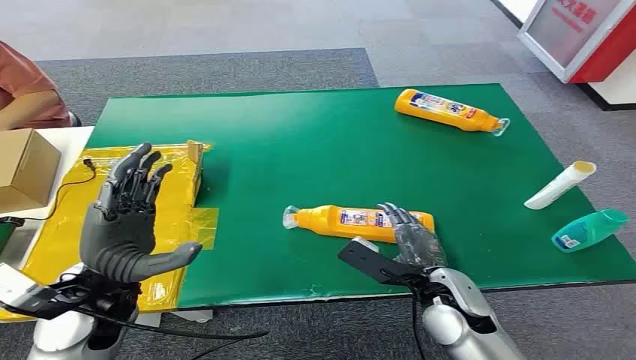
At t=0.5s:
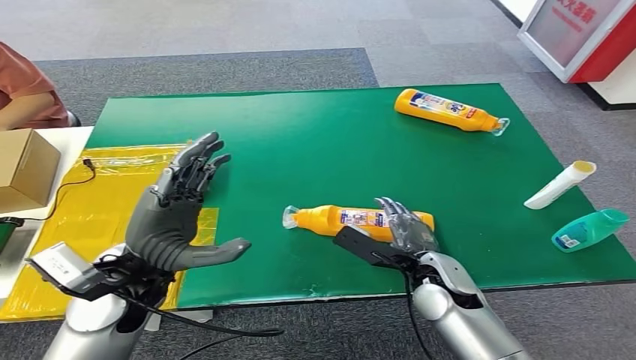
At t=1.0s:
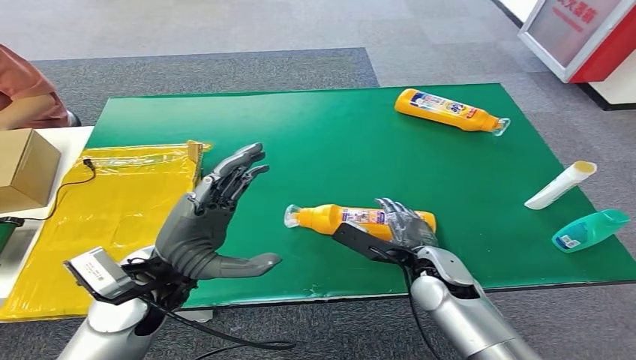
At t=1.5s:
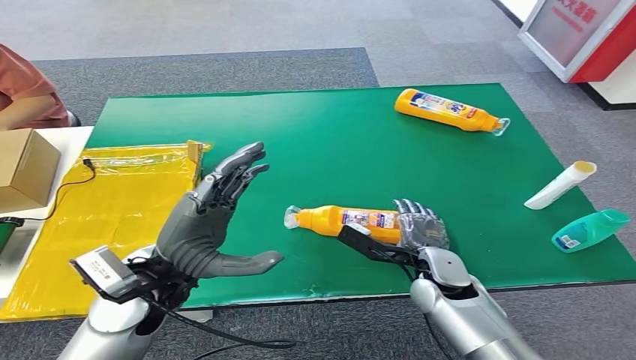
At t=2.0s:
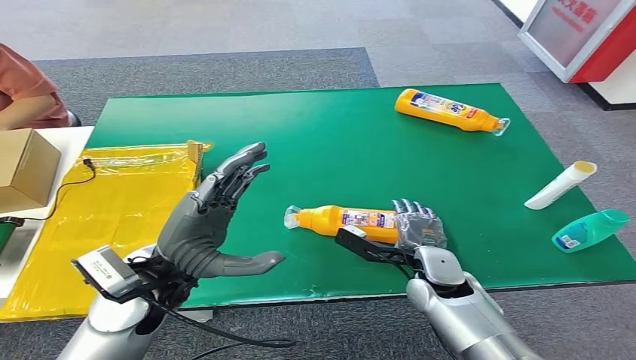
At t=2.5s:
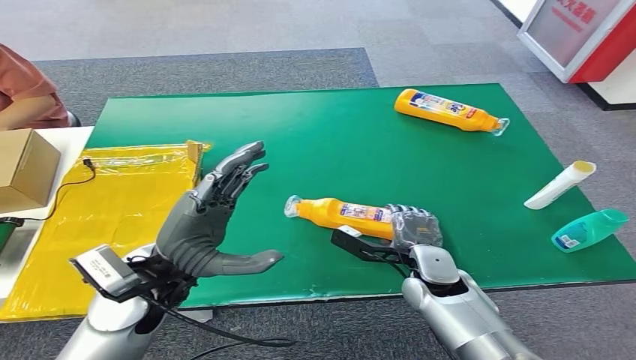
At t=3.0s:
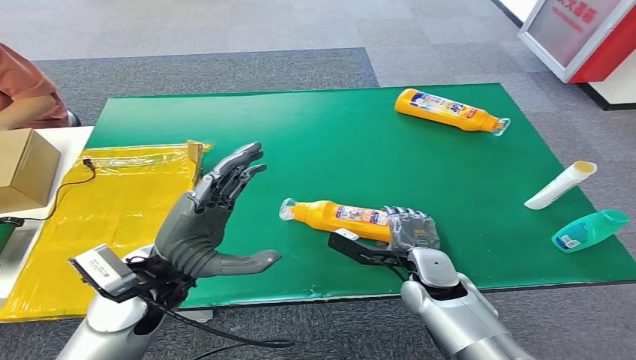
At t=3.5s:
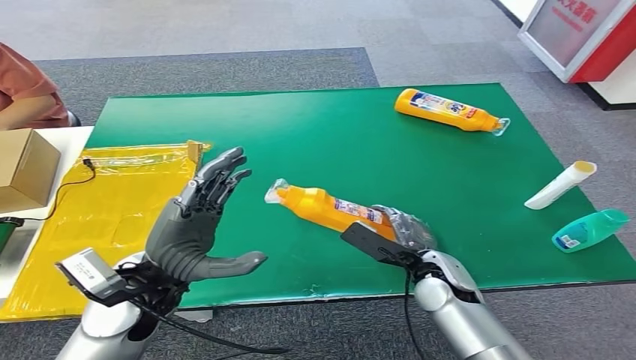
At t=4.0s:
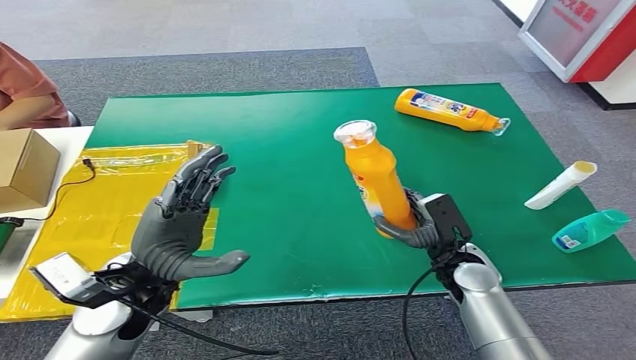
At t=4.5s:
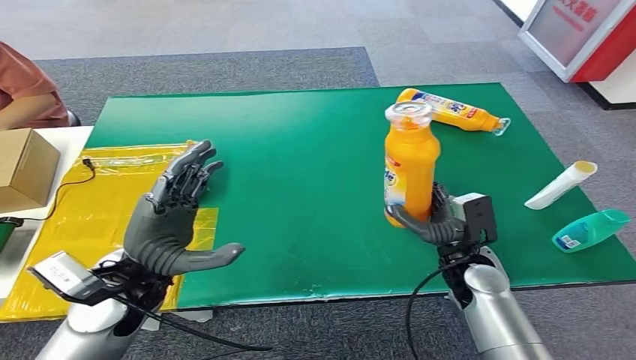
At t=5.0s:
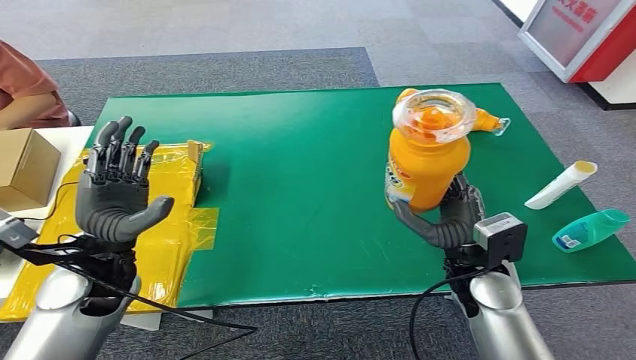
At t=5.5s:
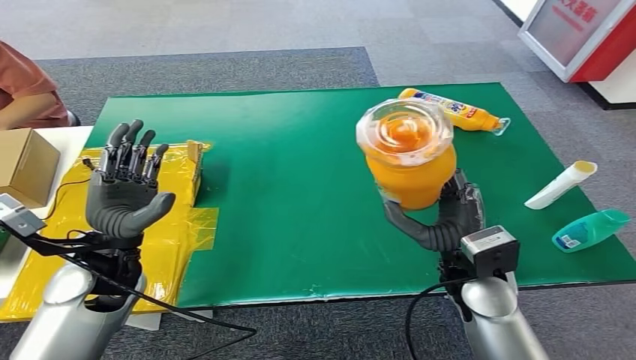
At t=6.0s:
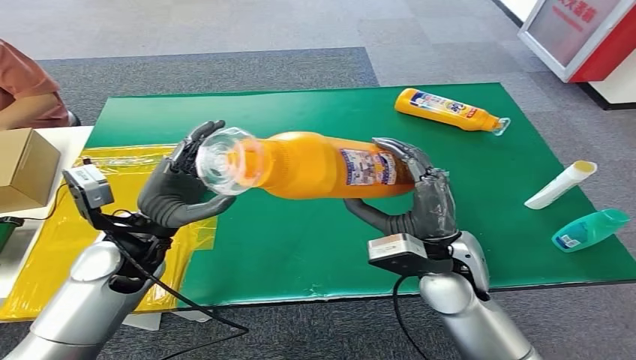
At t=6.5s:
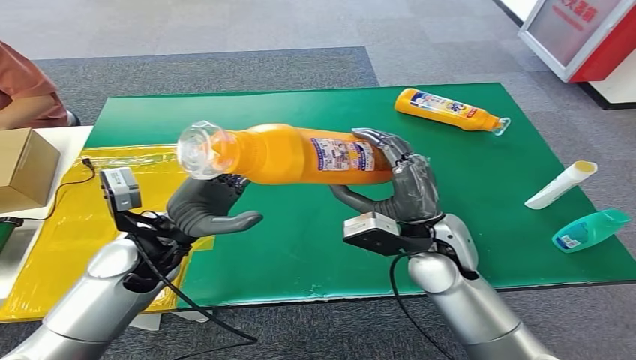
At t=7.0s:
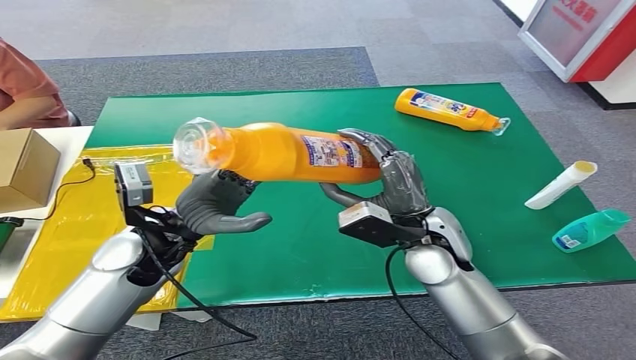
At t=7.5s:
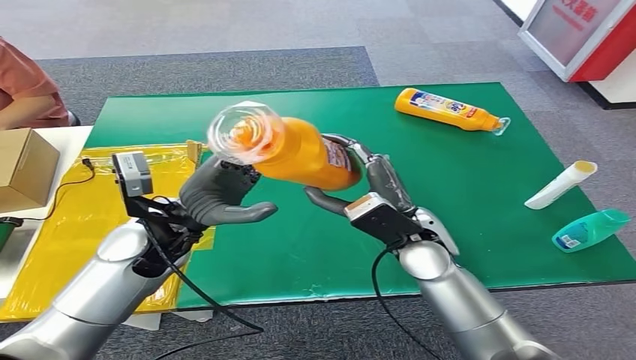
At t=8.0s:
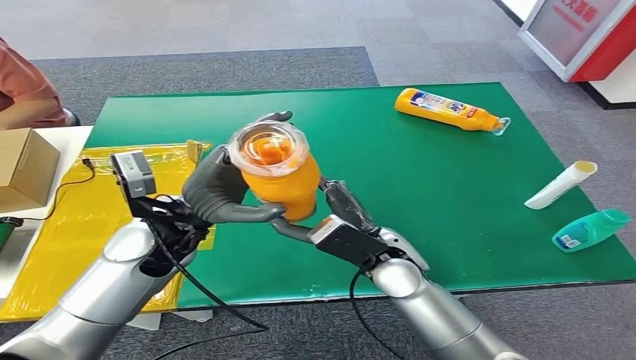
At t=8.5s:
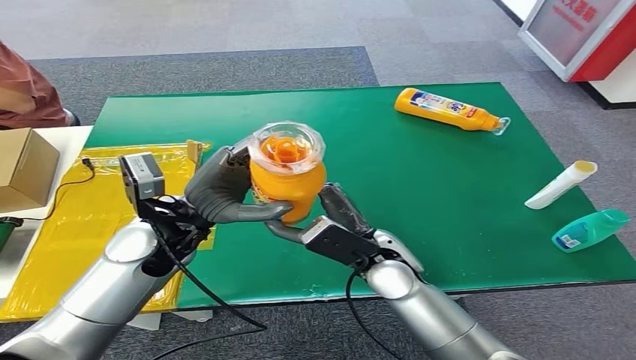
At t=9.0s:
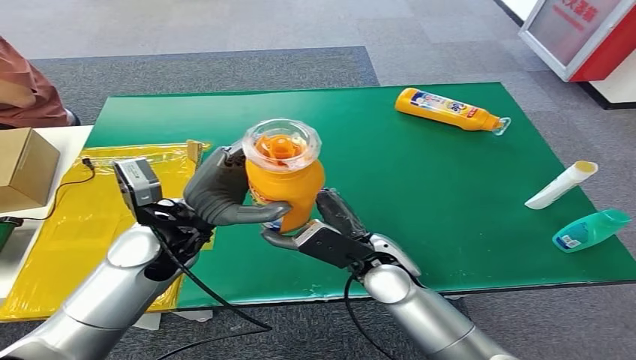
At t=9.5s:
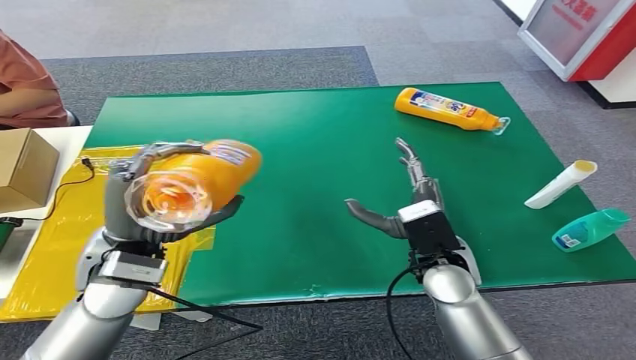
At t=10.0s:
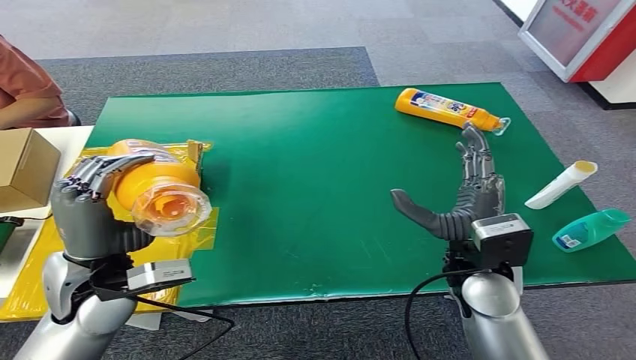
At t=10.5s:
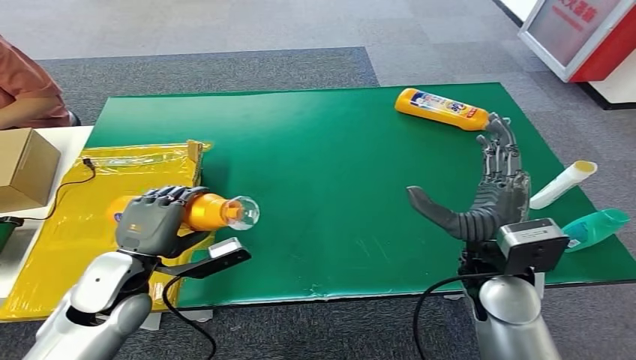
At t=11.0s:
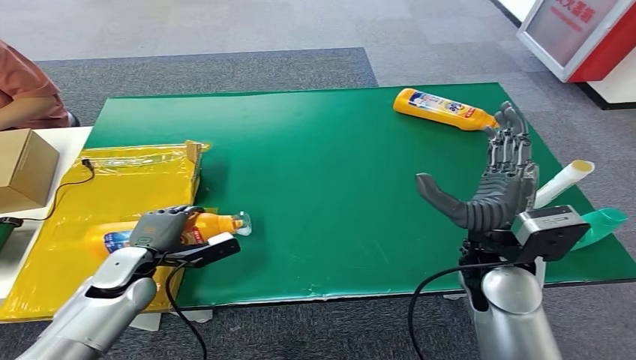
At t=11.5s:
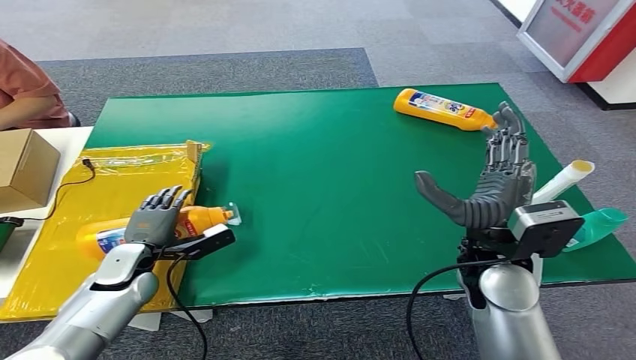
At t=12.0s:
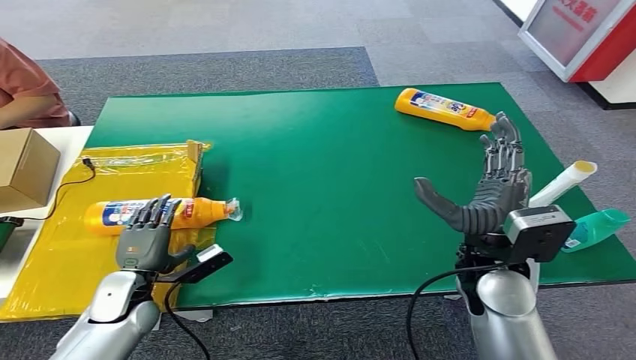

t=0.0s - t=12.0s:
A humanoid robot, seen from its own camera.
Step, t=0.0s - t=4.0s: Pick up the bottle from the table.
Step, t=4.5s - t=12.0s: Turn the bottle to the front side.
t=10.0s - t=12.0s: The left hand shifts approximately 20 cm downward.
